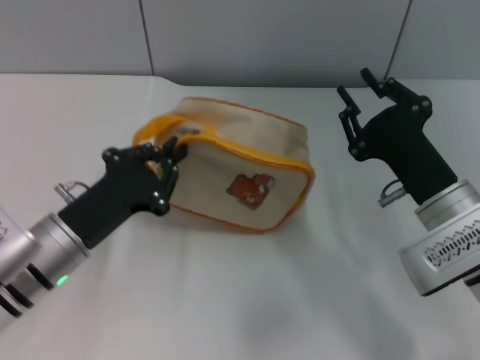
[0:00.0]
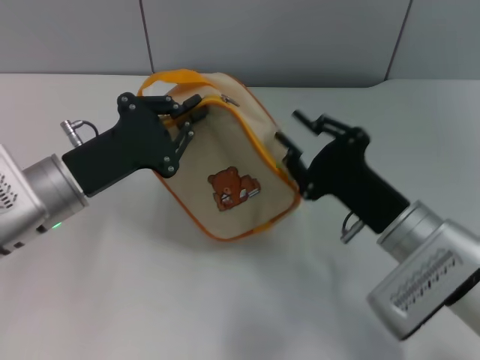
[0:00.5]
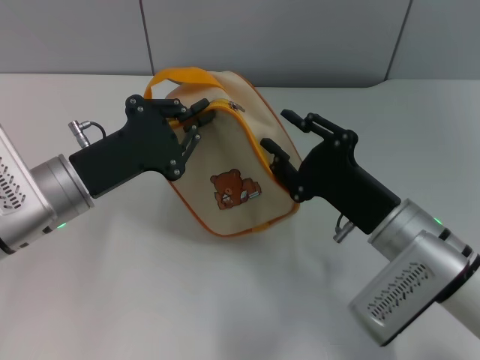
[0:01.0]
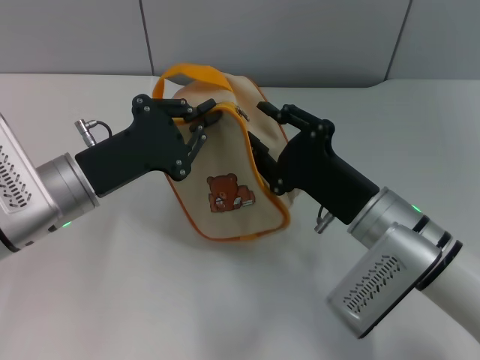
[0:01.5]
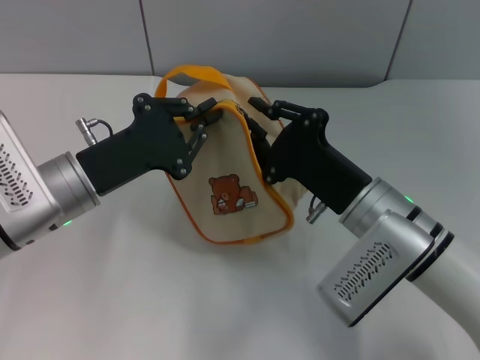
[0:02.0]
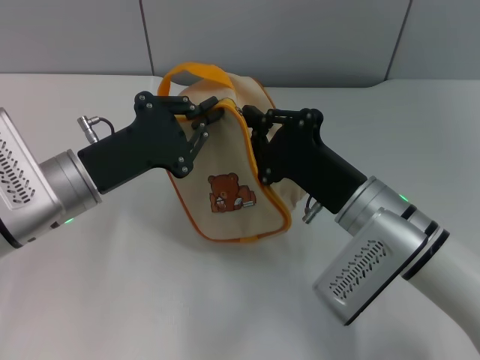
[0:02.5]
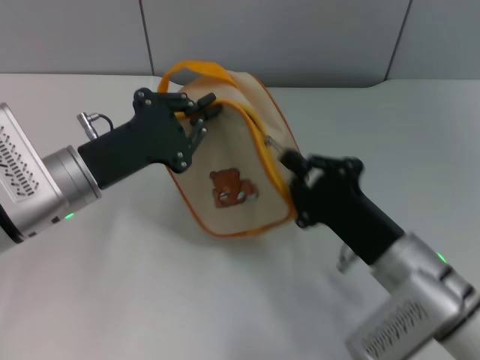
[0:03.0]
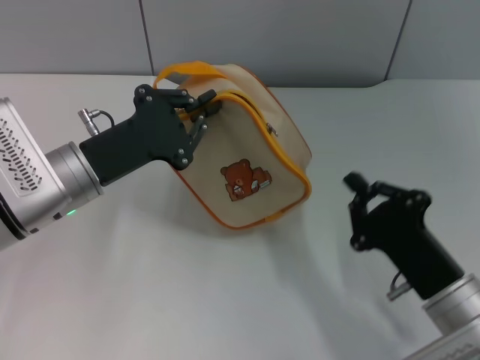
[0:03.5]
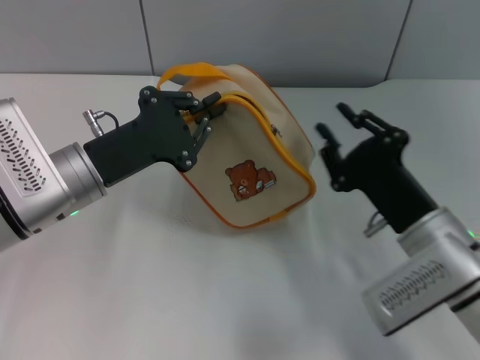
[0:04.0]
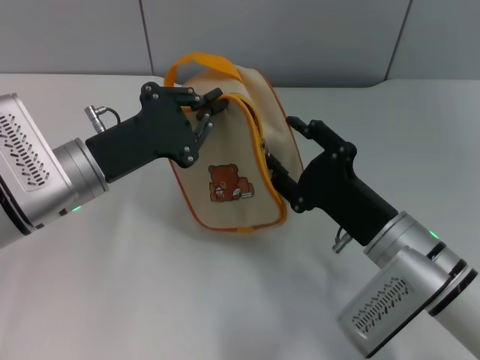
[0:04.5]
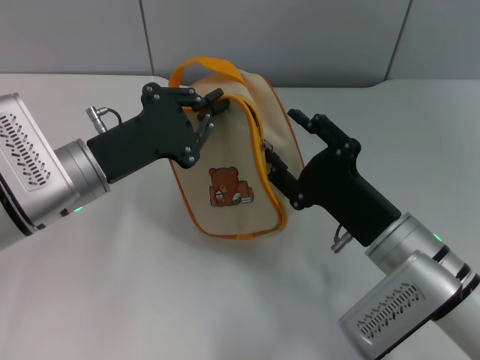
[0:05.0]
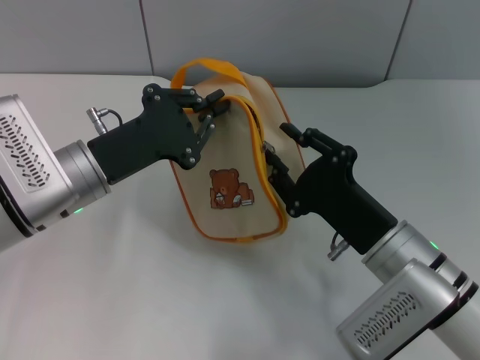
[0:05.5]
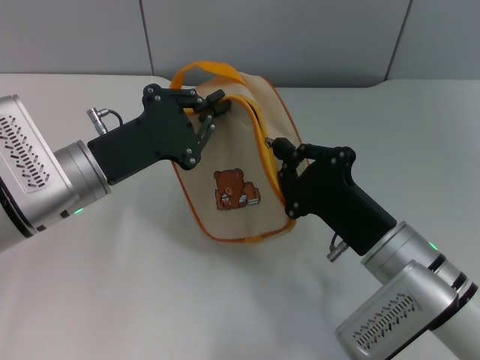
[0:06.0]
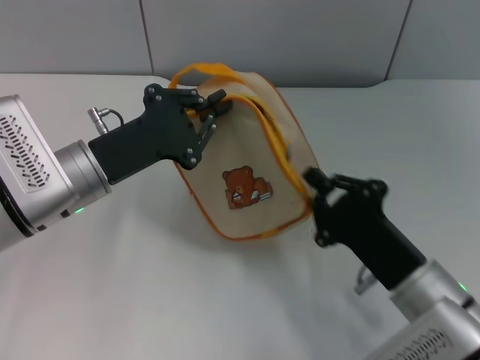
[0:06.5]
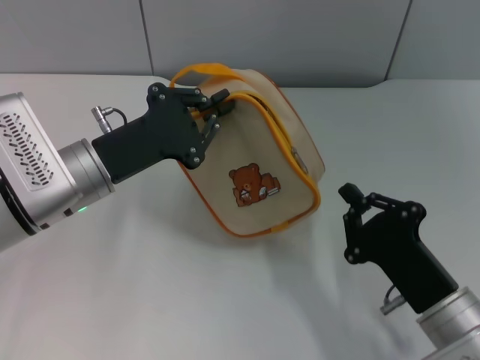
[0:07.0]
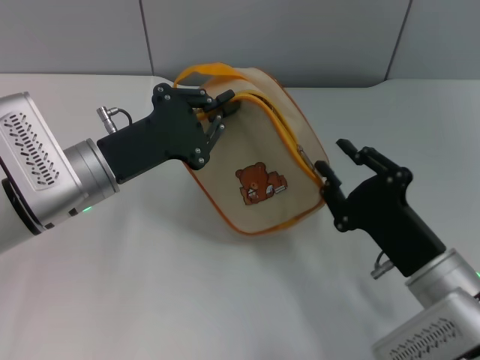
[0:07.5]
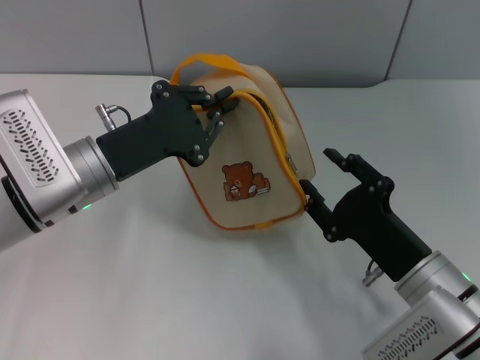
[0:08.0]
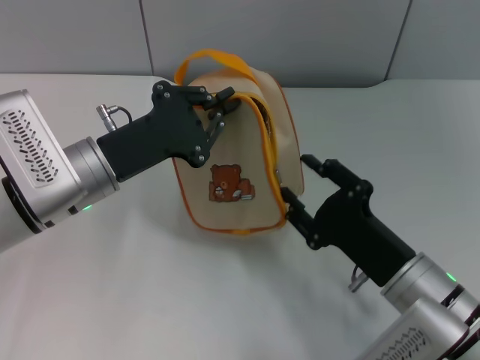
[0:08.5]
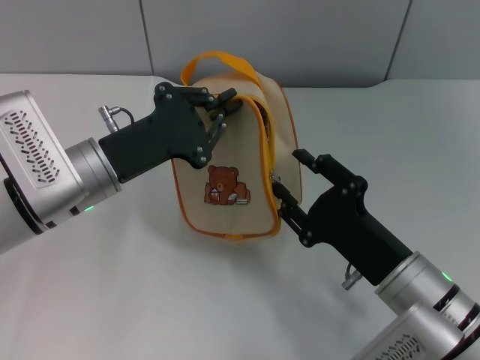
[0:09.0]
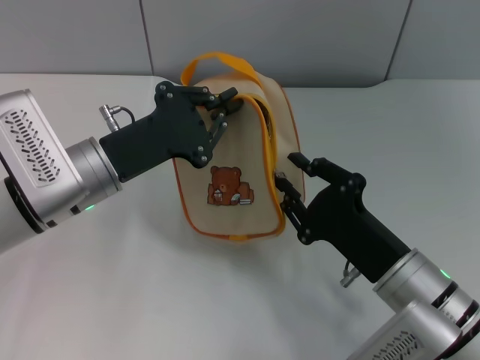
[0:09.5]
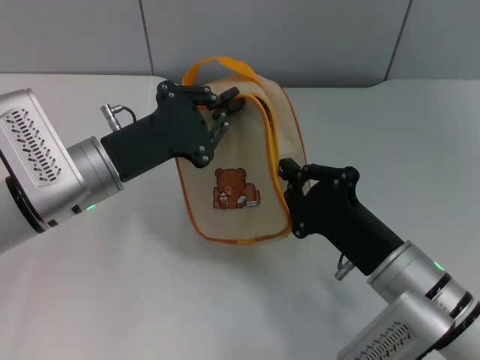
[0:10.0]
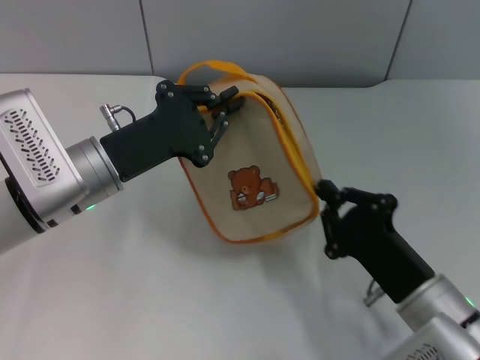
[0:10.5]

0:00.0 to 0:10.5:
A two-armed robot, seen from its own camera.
0:00.0 to 0:02.0: The left gripper changes place by about 5 cm. Meanwhile the right gripper travels to the left by about 5 cm.
0:02.0 to 0:04.0: The right gripper moves some 10 cm backward and comes back.
0:04.0 to 0:06.5: The right gripper shifts by about 5 cm, and opens, then closes again.
0:06.5 to 0:08.5: The right gripper opens.
0:08.5 to 0:10.5: The right gripper closes up.

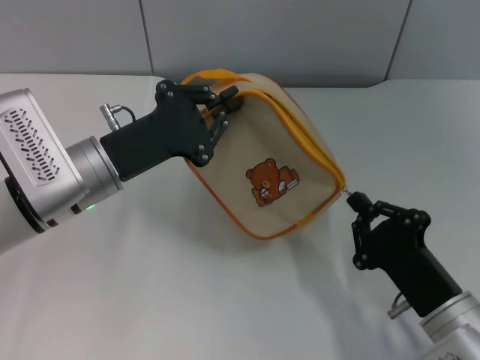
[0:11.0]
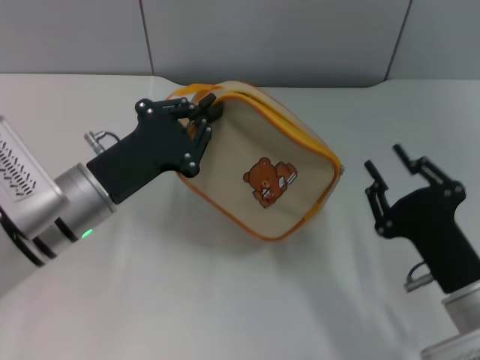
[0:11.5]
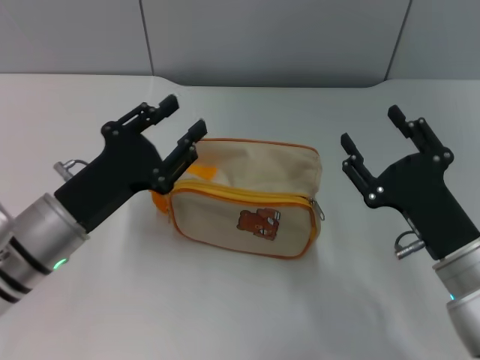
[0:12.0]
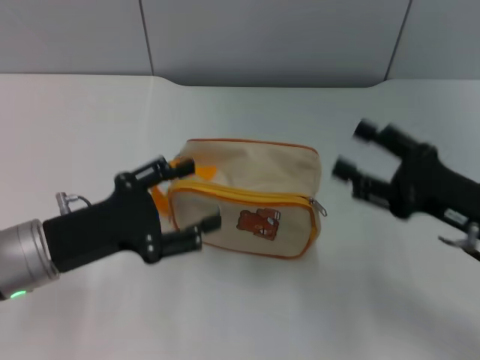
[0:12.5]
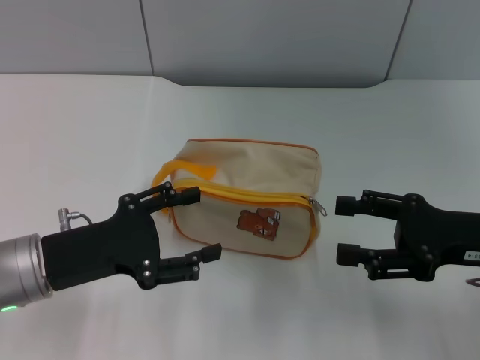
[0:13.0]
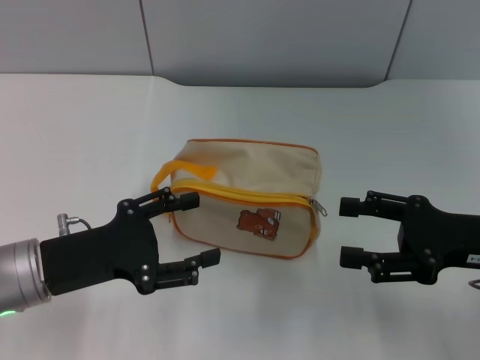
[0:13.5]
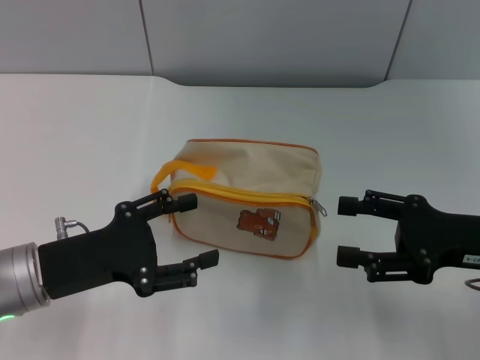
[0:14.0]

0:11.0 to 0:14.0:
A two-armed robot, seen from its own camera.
0:11.0 to 0:12.5: The left gripper is displaced backward and to the left by about 10 cm, and opens its fingers. Meanwhile the right gripper is displaced forward, upward and to the right by some 15 cm, and opens.

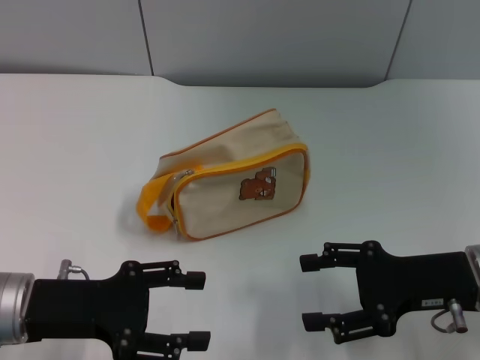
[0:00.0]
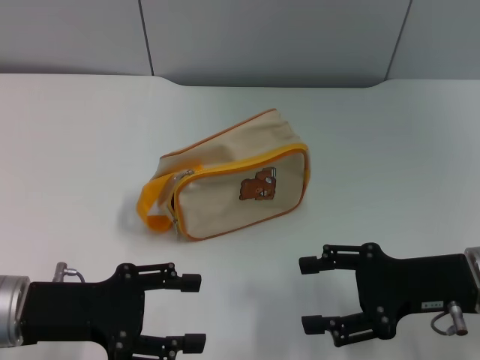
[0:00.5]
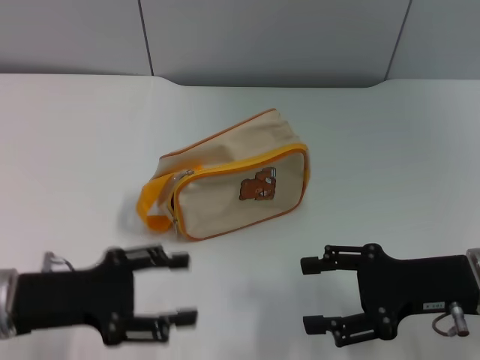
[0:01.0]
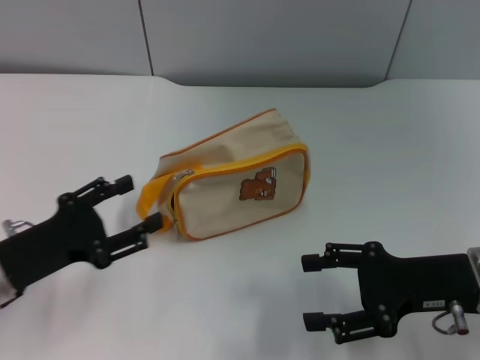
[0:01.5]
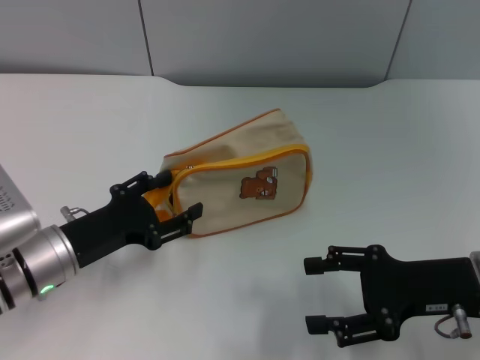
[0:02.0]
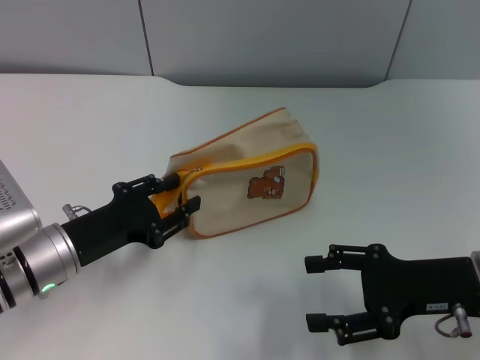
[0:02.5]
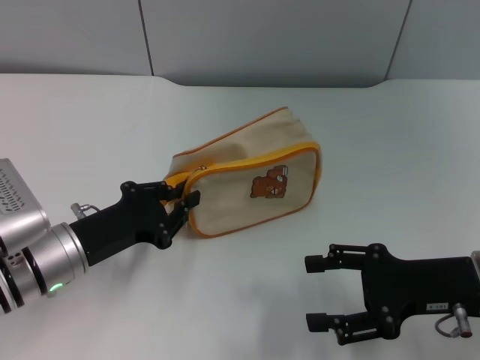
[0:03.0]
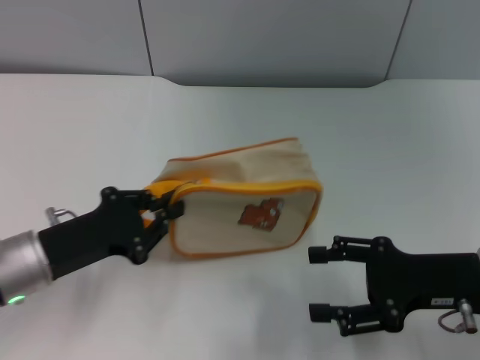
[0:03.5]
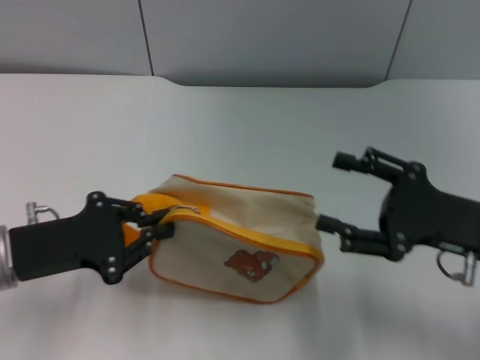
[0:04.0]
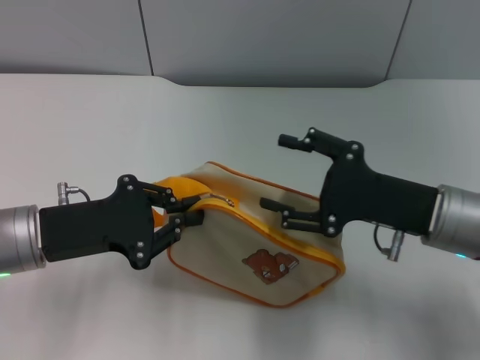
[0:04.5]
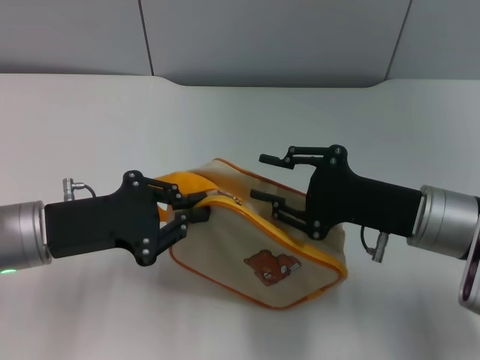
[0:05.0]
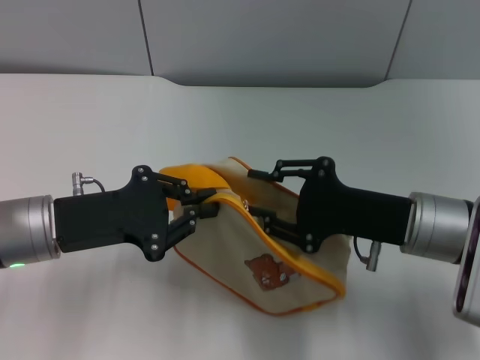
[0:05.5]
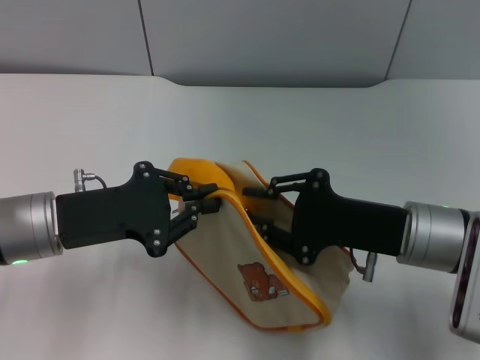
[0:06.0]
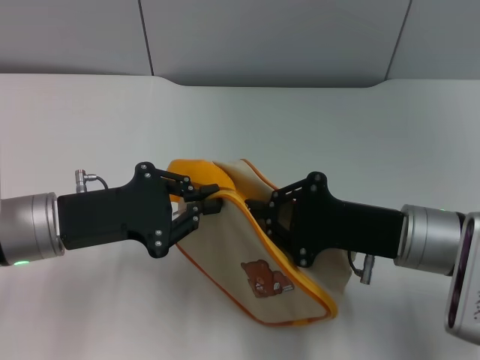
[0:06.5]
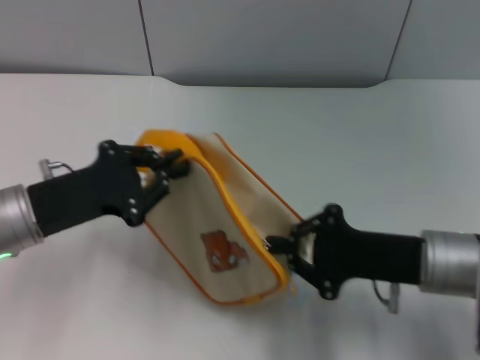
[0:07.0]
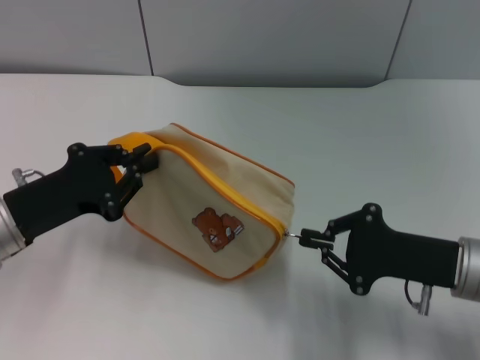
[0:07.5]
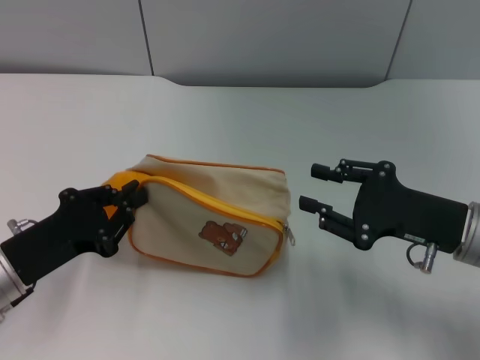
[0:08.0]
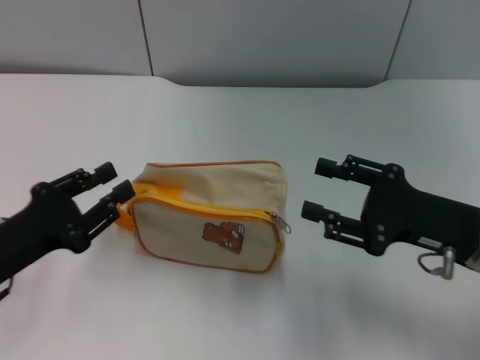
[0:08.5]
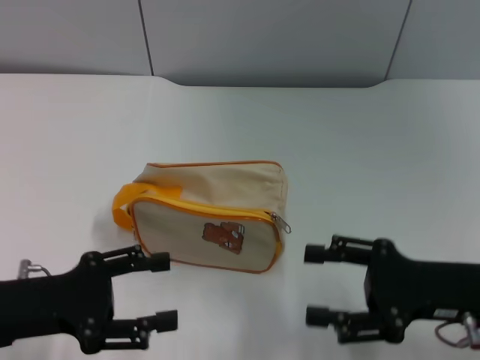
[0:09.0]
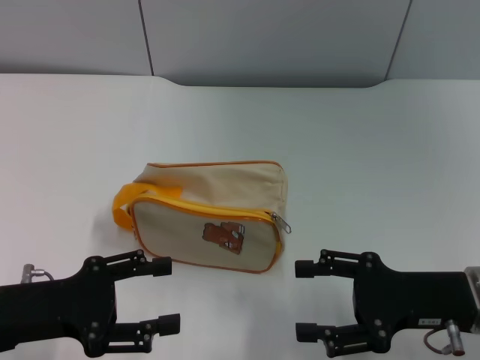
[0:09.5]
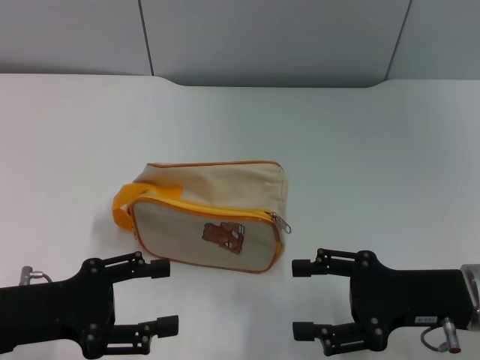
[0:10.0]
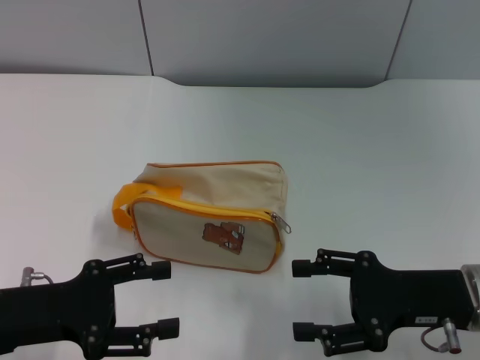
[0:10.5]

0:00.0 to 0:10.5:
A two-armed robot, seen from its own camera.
Step, 0:00.0 to 0:03.5: Pick up the bag with left gripper.
Step, 0:04.0 to 0:07.5: Unzip the zipper of bag with right gripper.
Step, 0:08.0 to 0:09.0: Place the bag on the table with left gripper.
0:00.0 to 0:02.0: The left gripper shifts by approximately 5 cm.
0:02.0 to 0:04.0: The left gripper ends up roughly 5 cm from where it was, and closes up.
0:04.0 to 0:06.5: The right gripper shifts about 5 cm to the left, and closes.
0:06.5 to 0:08.5: The left gripper travels to the left and backward by roughly 10 cm, while the right gripper moves to the right, approximately 5 cm, and opens.
0:08.5 to 0:10.5: The left gripper opens.

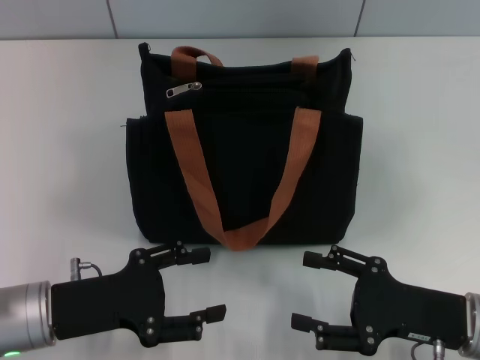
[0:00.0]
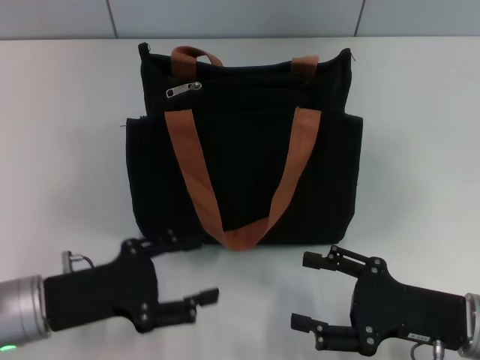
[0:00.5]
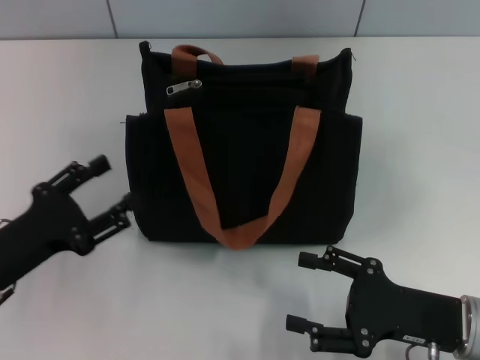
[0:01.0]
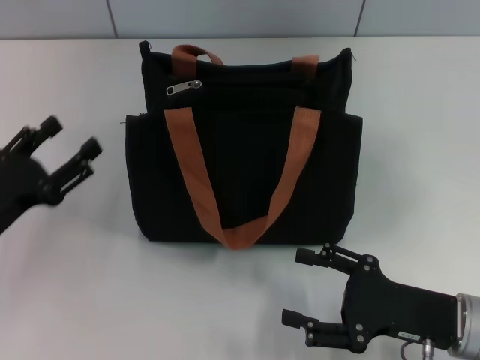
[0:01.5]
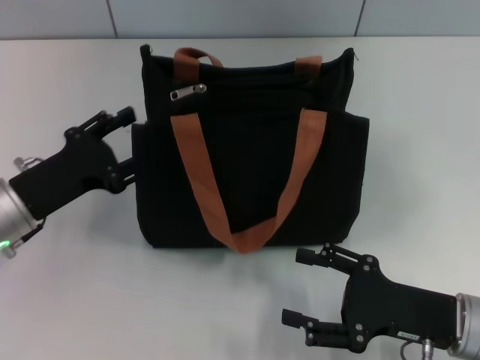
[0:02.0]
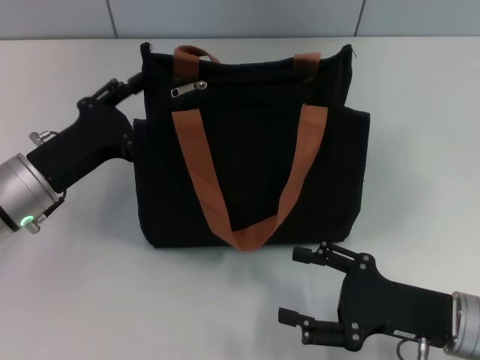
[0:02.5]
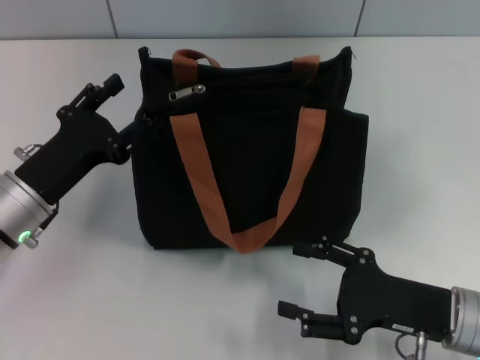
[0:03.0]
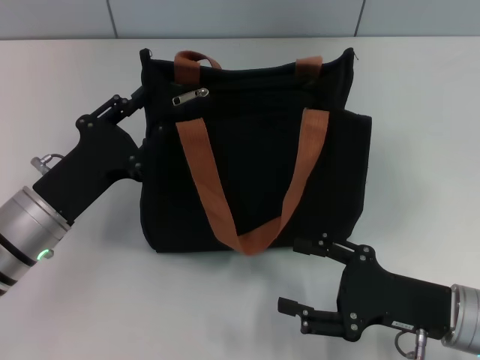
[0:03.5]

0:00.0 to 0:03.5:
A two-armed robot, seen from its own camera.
0:00.0 to 0:02.0: The left gripper shifts roughly 5 cm forward.
0:02.0 to 0:03.5: The grippers move only a little.
